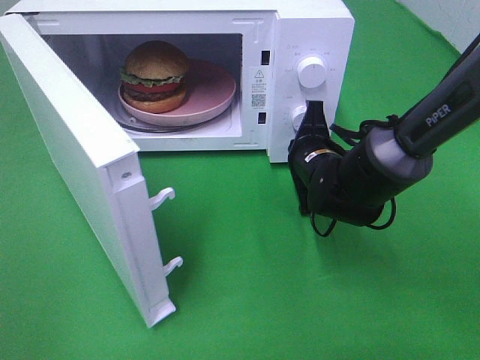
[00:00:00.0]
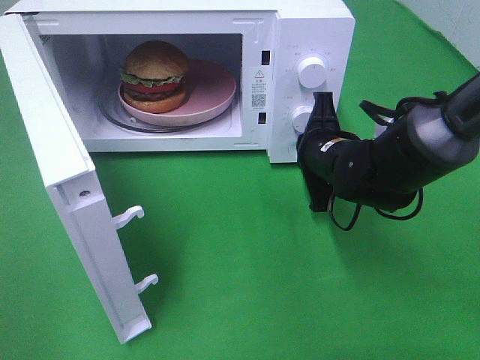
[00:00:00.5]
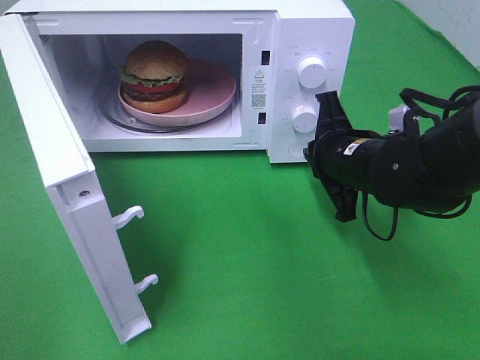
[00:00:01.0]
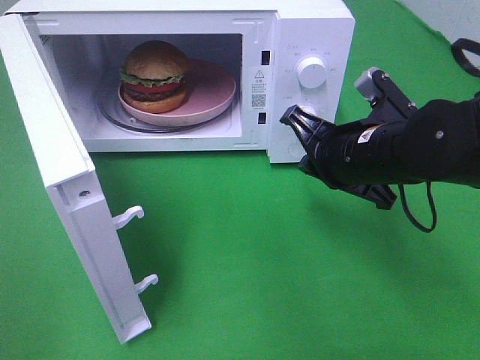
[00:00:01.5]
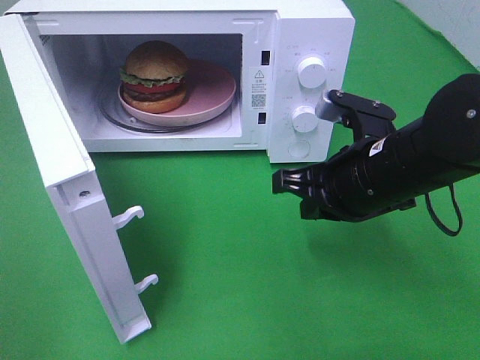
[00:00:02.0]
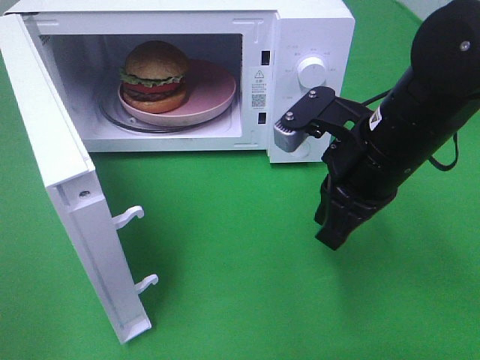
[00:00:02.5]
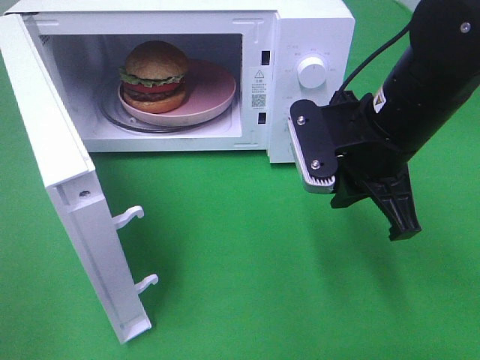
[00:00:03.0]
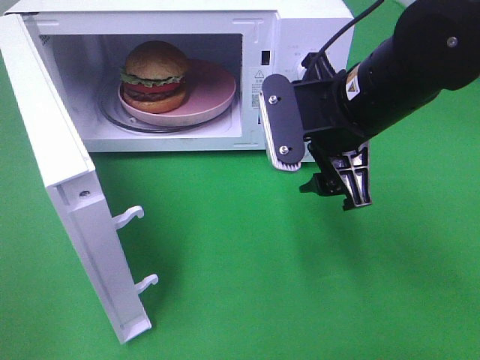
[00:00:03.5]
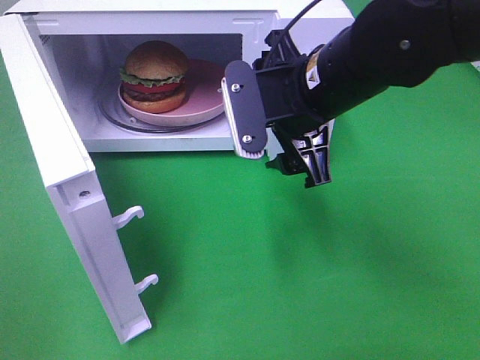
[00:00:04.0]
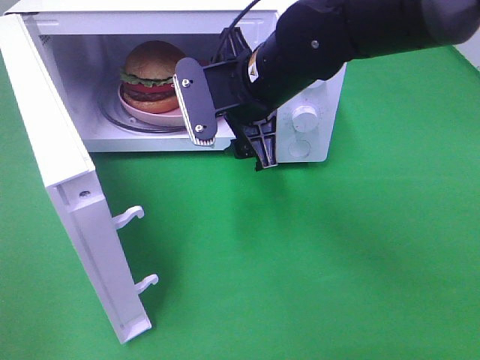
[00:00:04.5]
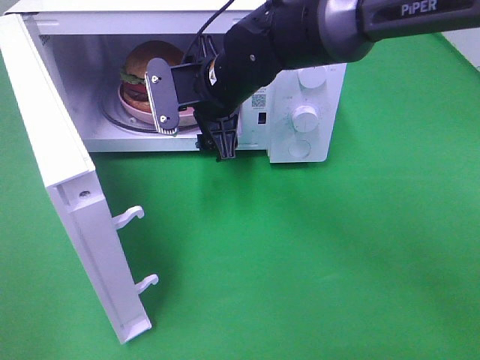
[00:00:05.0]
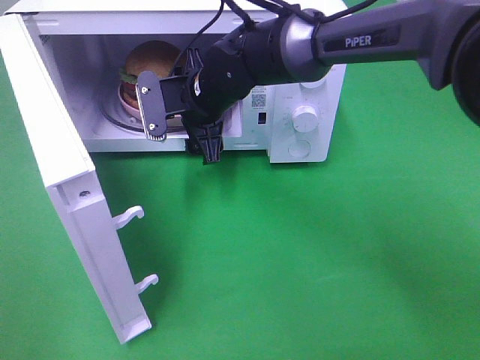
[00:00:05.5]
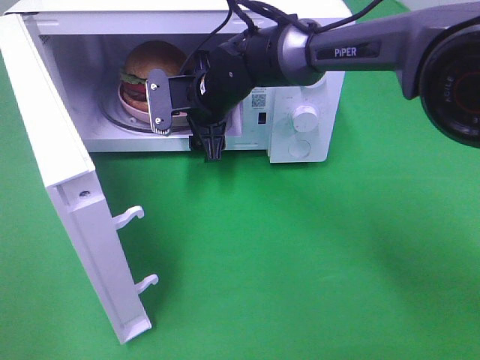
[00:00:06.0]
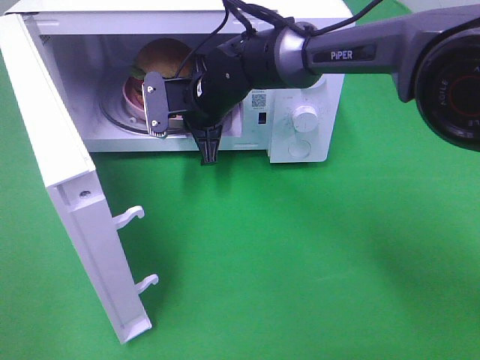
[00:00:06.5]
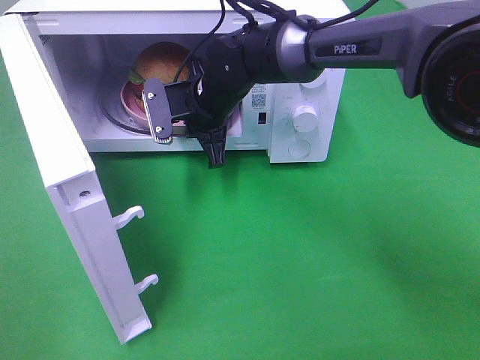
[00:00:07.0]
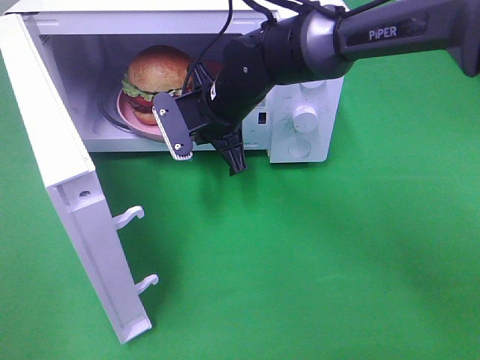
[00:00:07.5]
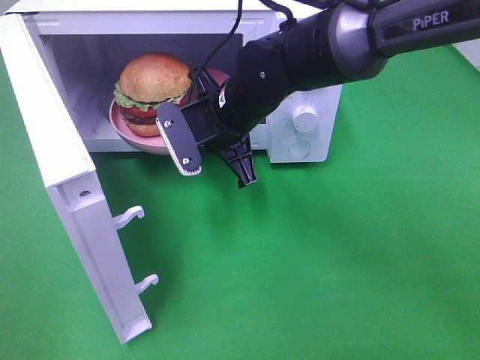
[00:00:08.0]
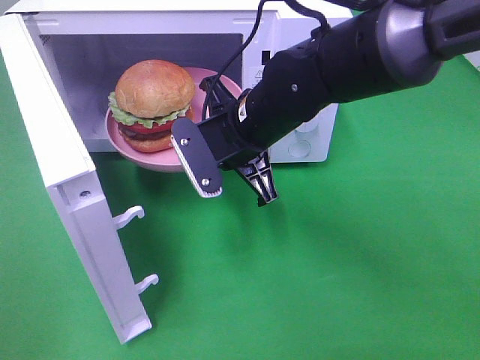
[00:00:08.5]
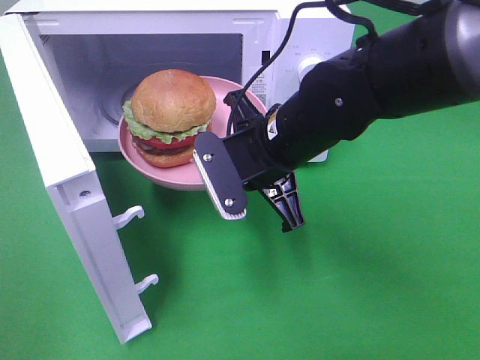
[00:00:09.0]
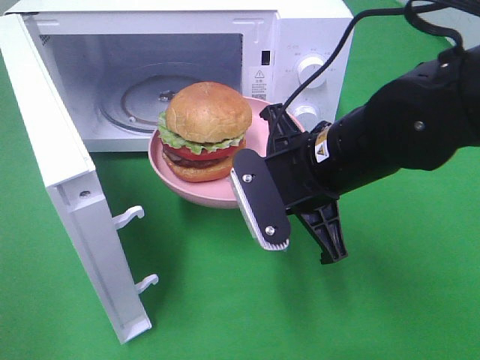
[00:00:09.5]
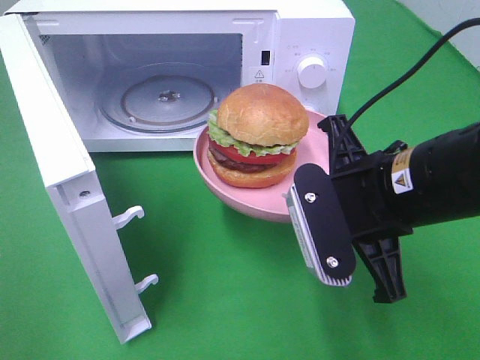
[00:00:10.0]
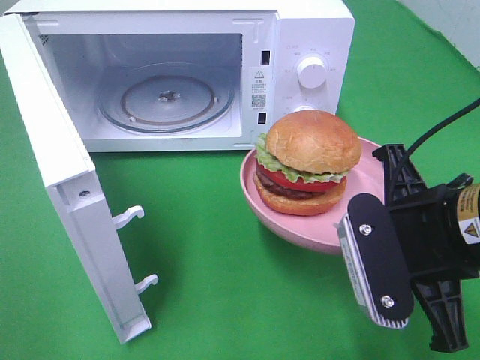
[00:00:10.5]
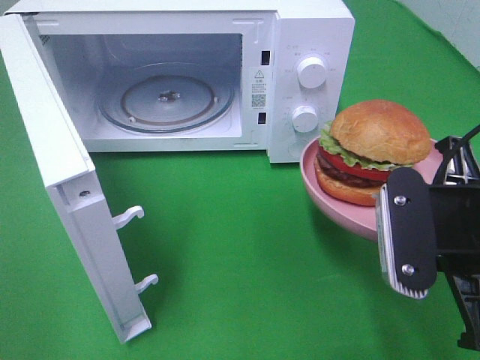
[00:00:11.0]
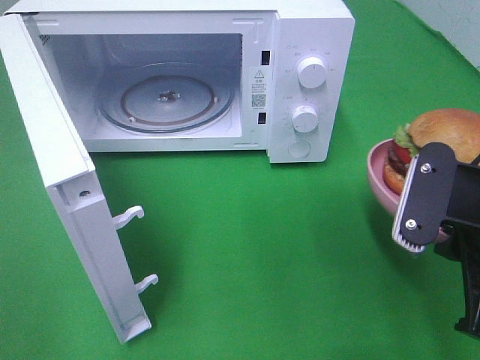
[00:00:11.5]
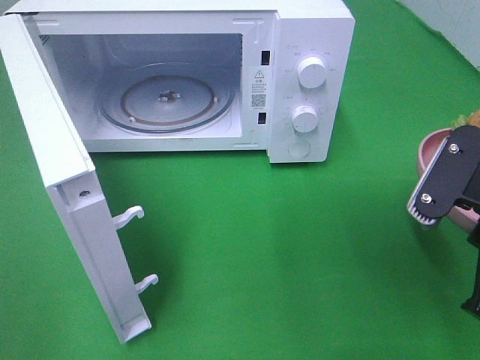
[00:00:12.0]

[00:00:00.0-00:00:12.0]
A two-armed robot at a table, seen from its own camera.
Task of the whole recording: Heat the burger.
Step, 00:00:01.0 to 00:00:07.0: Right hand: grab the plate with the hamburger.
00:00:00.0 to 00:00:02.0: The right gripper moves backward and upward, about 15 cm.
00:00:02.0 to 00:00:04.0: The right gripper moves to the left and upward, roughly 10 cm, and opens its fingers.
00:00:04.0 to 00:00:06.0: The right gripper moves forward, to the left and downward, about 20 cm.
00:00:06.0 to 00:00:08.0: The right gripper heads backward, covering some 5 cm, and closes its fingers.
00:00:08.0 to 00:00:10.0: The right gripper travels backward and to the right by some 20 cm.
00:00:10.0 to 00:00:12.0: The right gripper heads to the right, covering some 10 cm.

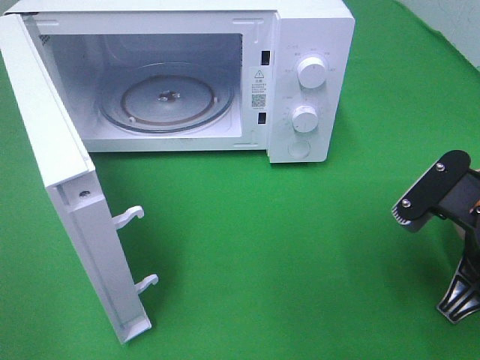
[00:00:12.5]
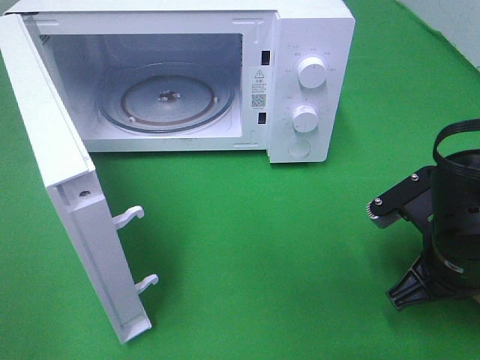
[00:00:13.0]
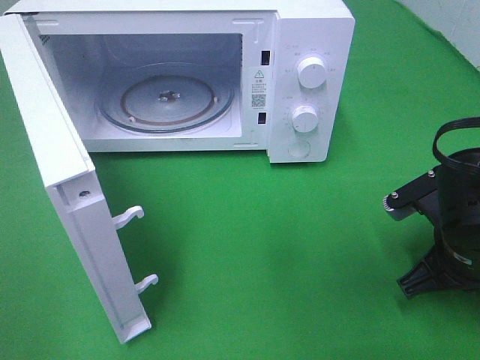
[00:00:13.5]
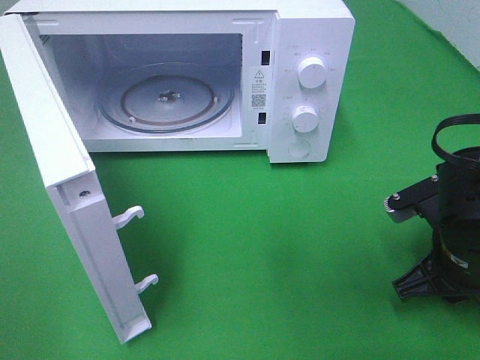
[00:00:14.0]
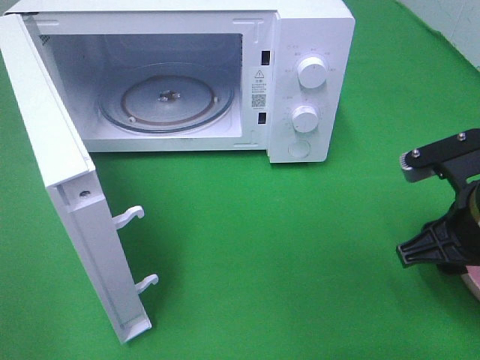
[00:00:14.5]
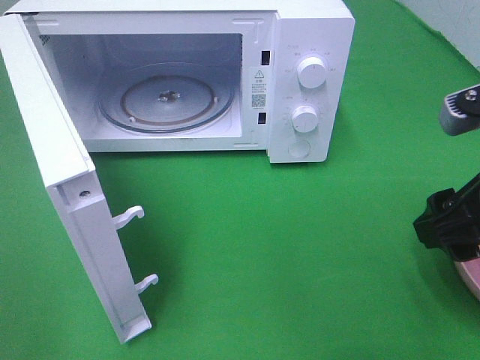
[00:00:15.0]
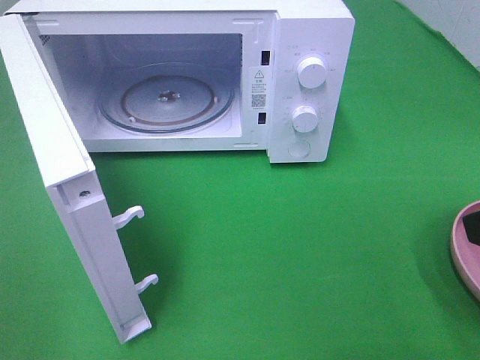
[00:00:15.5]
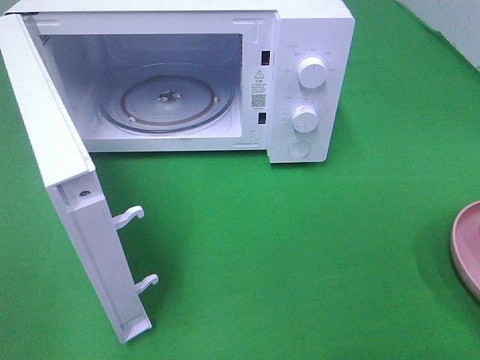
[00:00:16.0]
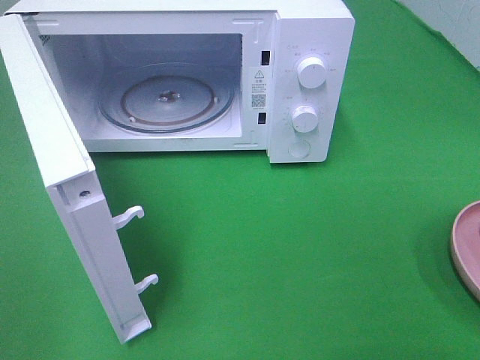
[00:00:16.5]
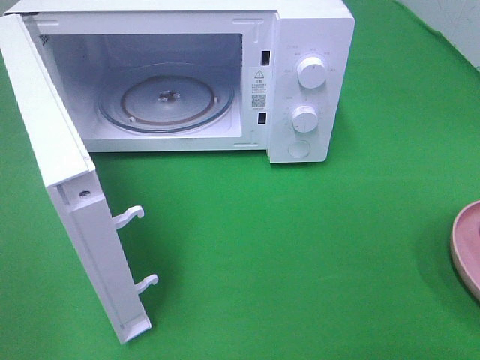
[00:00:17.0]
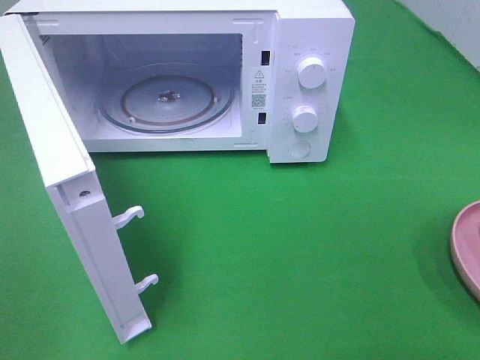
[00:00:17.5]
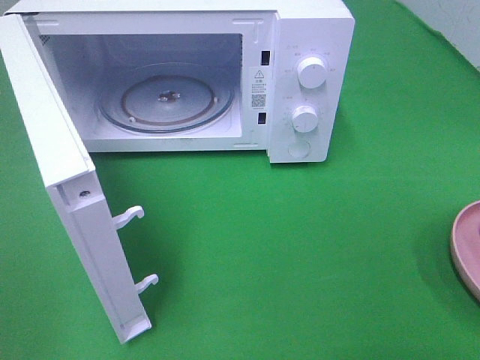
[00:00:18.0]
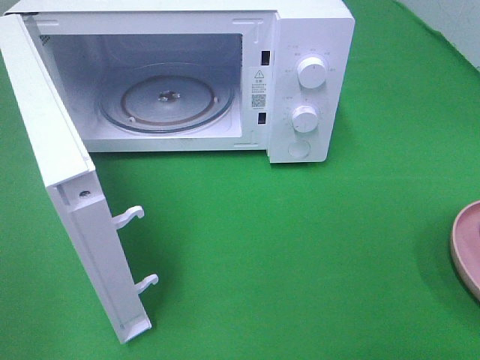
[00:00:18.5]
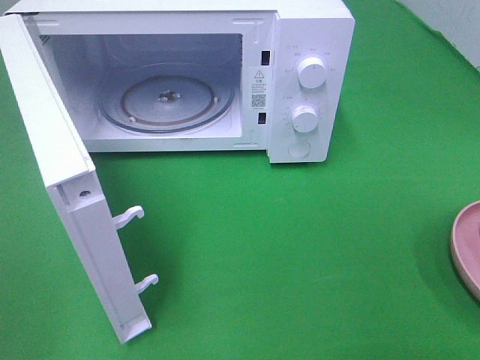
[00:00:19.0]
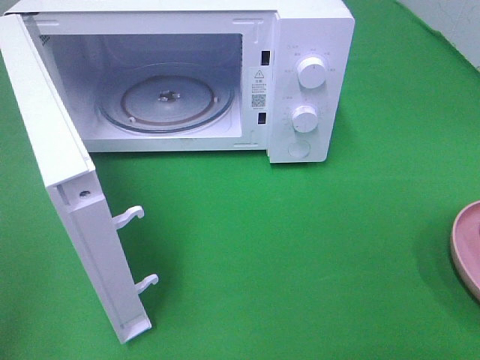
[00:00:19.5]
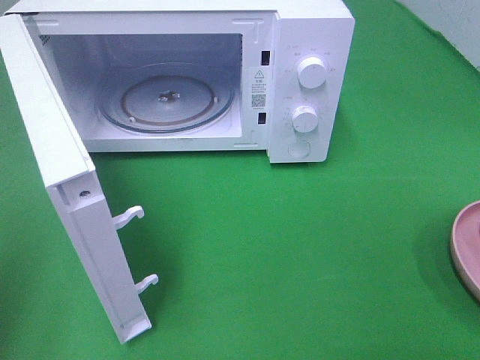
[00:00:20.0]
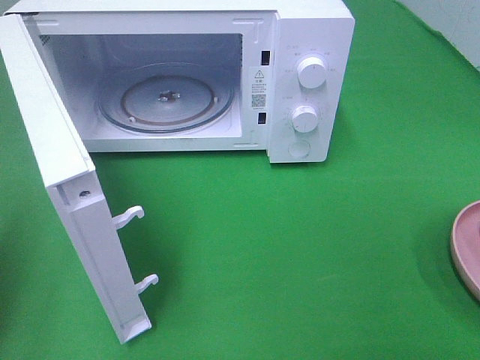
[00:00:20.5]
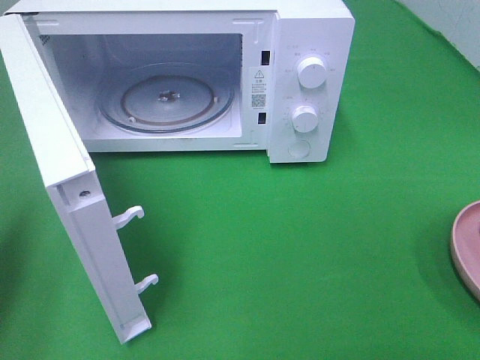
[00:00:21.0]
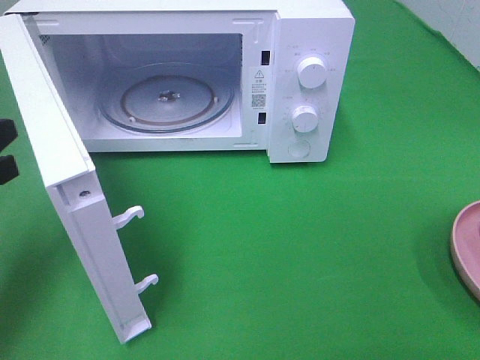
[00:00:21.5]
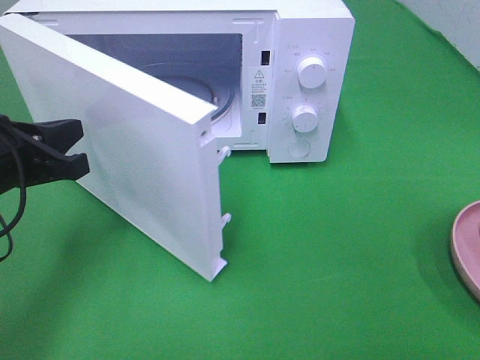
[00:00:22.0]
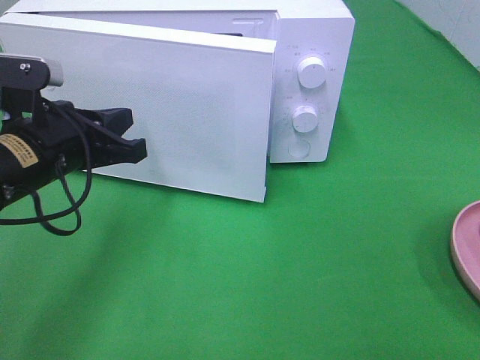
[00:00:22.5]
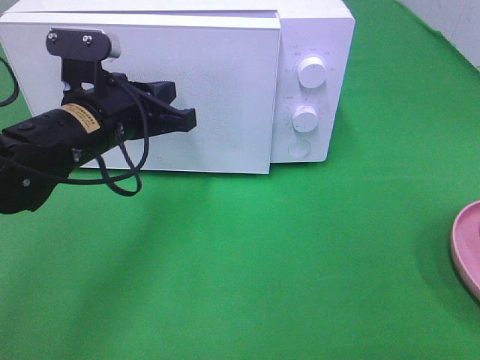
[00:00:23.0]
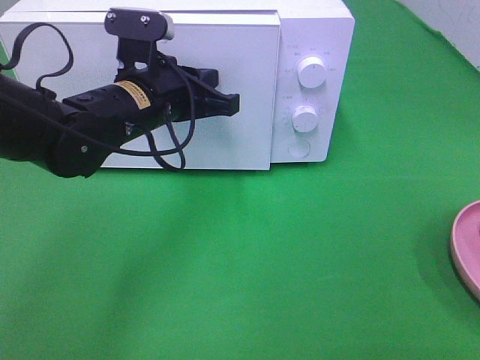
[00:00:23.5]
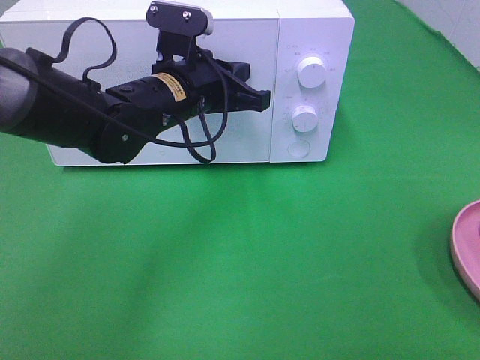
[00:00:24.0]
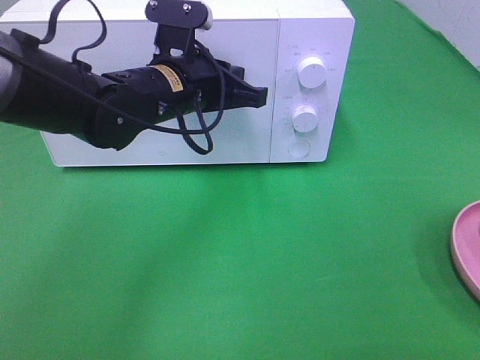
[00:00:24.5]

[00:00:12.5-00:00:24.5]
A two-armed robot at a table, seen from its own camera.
Task of the whole recording: Heat the burger.
Step, 00:00:12.5 to 00:00:14.5: Right hand: place the plate on the table.
00:00:12.5 to 00:00:14.5: The right gripper opens its fingers.
00:00:14.5 to 00:00:16.5: The right gripper goes some 20 cm backward, upward and to the right.
00:00:18.5 to 00:00:20.5: The left gripper is displaced forward by approximately 15 cm, and closes.
00:00:20.5 to 00:00:22.5: The left gripper heads to the right, forward and downward, covering approximately 20 cm.
00:00:22.5 to 00:00:24.5: The left gripper is displaced to the right and forward by some 15 cm.

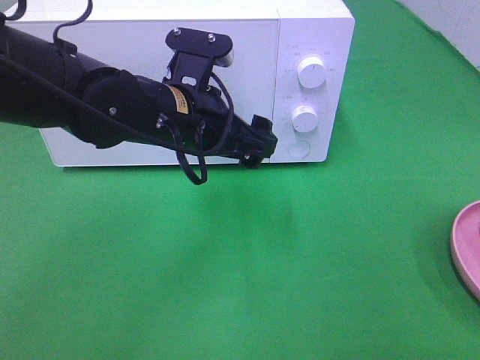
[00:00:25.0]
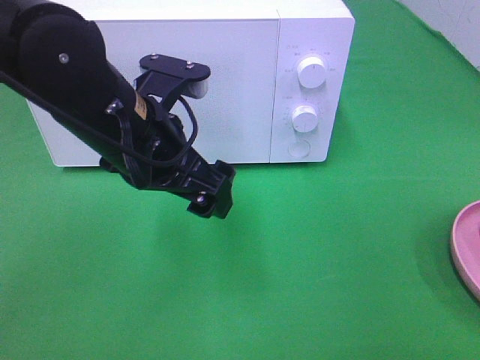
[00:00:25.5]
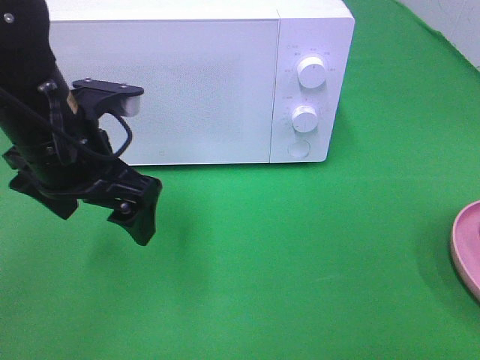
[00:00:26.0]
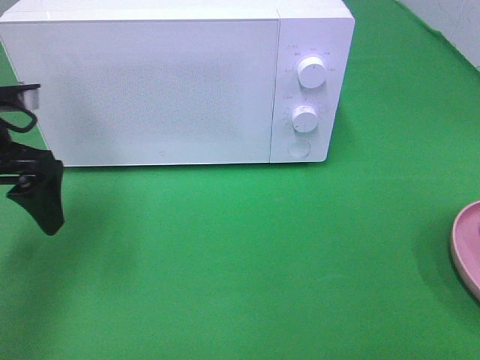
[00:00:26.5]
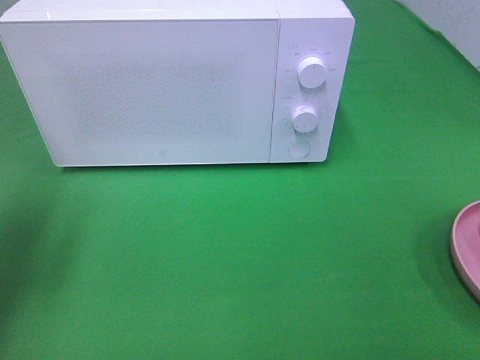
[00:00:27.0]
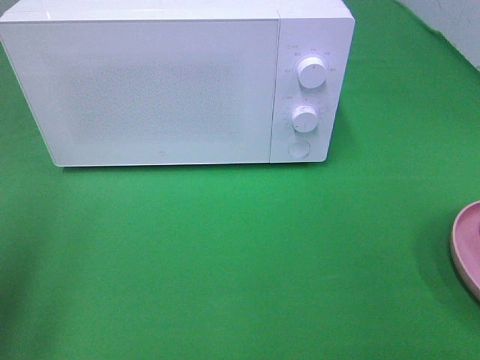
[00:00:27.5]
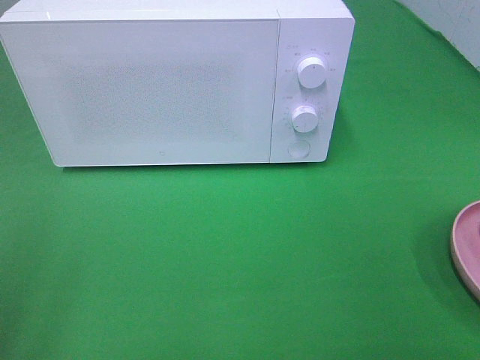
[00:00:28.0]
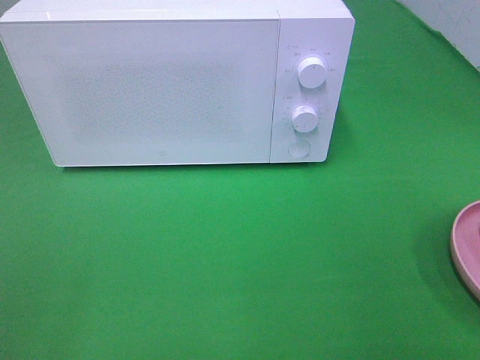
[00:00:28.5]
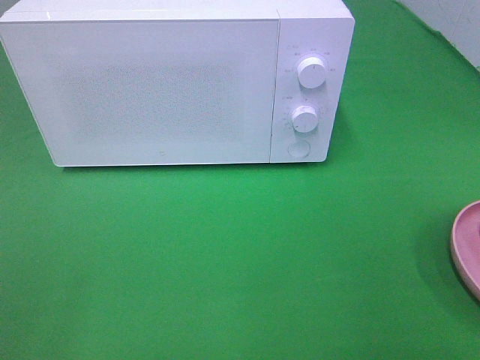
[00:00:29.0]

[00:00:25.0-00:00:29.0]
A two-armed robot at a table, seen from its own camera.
Task of the whole recording: Heat the burger.
00:00:25.0 to 00:00:27.0: The left gripper heads to the left, covering about 25 cm.
00:00:27.0 to 00:00:29.0: The left gripper shifts approximately 25 cm backward.
